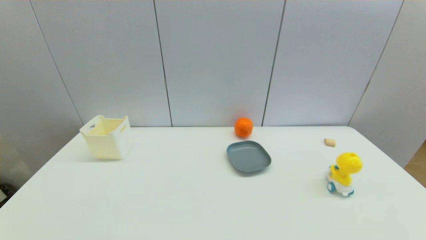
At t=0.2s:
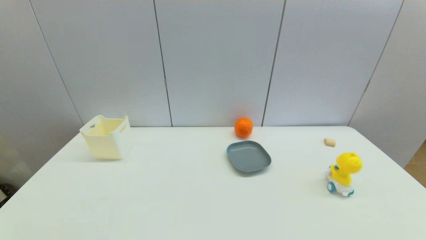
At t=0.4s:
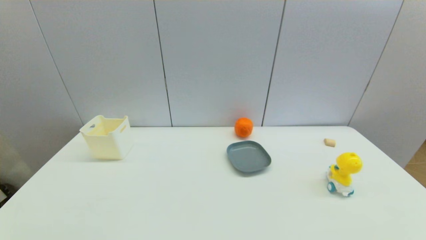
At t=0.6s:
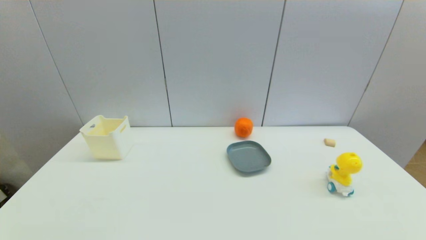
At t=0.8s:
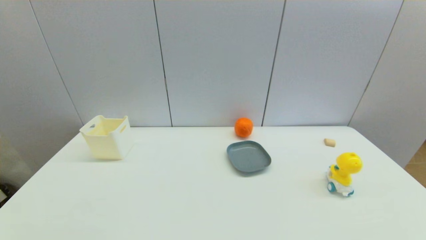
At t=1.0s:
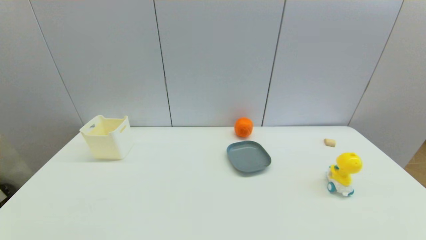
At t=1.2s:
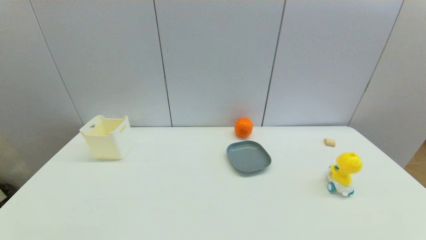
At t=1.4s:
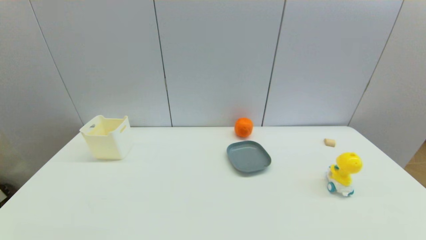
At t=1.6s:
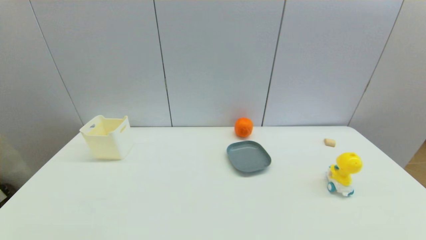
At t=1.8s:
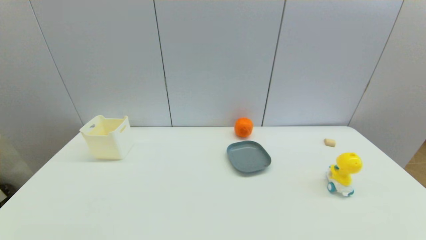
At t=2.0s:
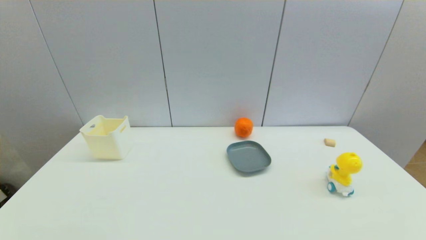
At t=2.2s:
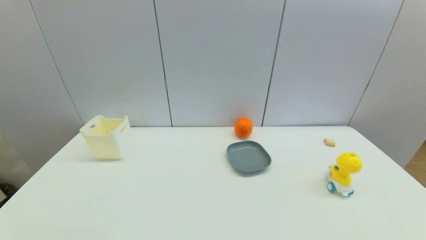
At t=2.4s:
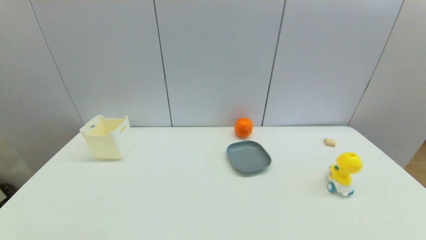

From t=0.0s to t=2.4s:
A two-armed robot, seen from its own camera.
From t=1.2s to t=2.4s: Both grippers stay about where they are.
